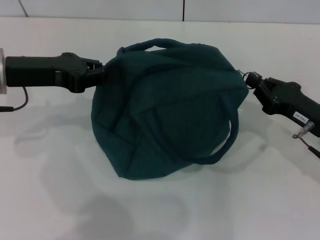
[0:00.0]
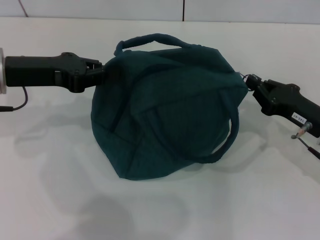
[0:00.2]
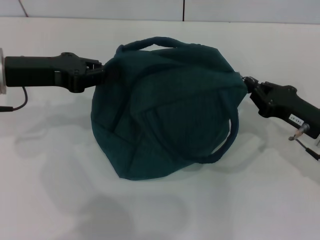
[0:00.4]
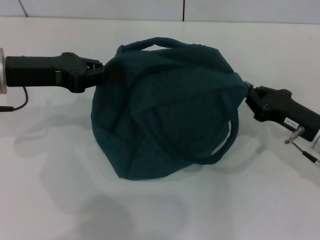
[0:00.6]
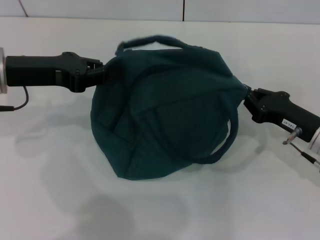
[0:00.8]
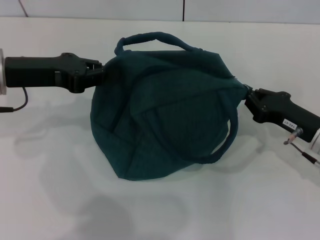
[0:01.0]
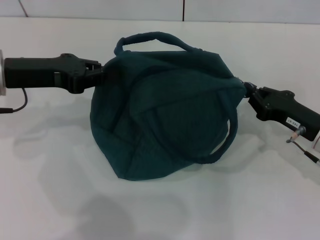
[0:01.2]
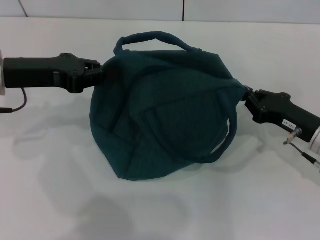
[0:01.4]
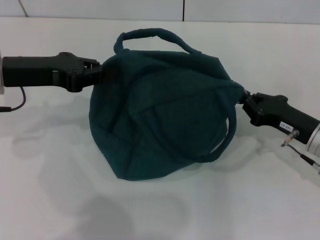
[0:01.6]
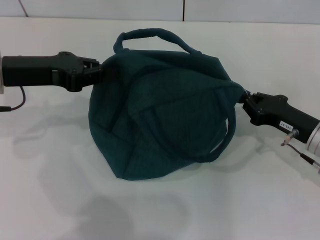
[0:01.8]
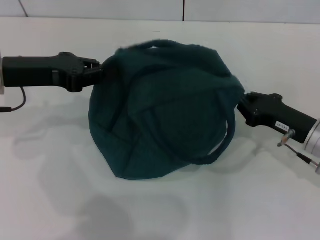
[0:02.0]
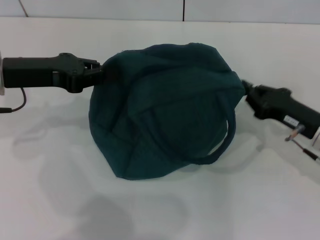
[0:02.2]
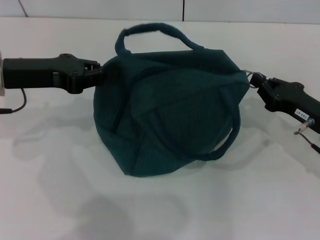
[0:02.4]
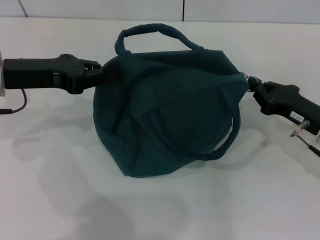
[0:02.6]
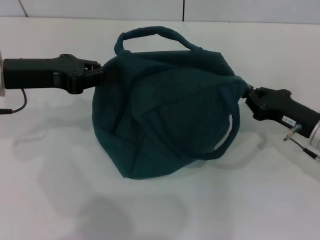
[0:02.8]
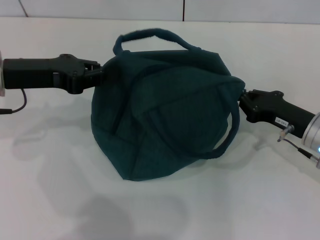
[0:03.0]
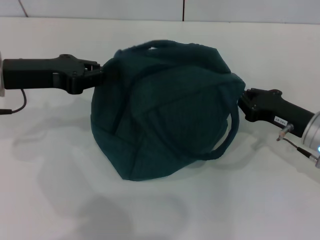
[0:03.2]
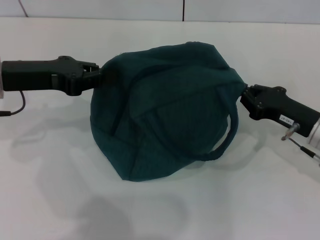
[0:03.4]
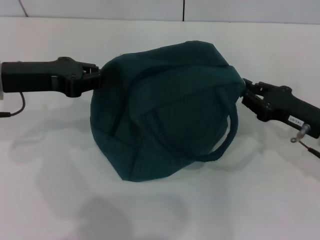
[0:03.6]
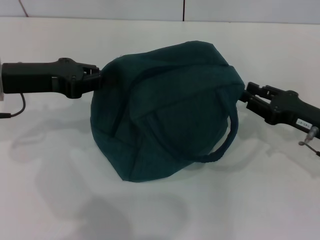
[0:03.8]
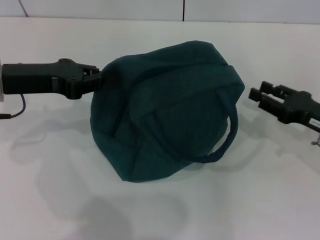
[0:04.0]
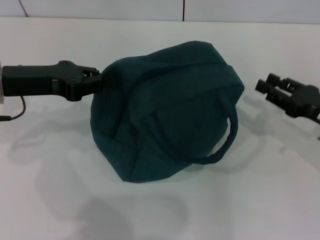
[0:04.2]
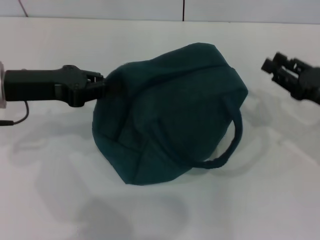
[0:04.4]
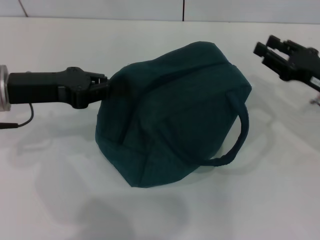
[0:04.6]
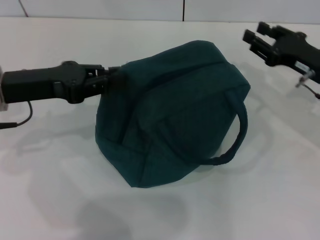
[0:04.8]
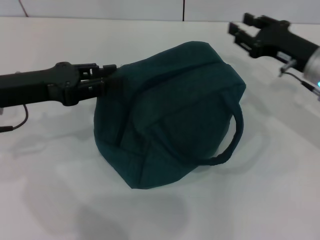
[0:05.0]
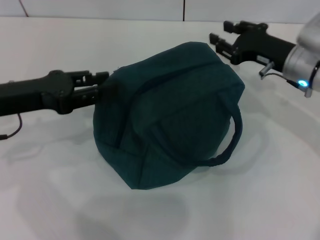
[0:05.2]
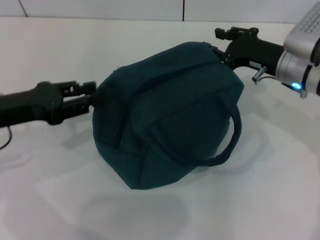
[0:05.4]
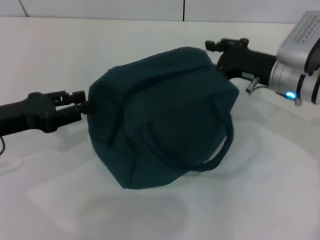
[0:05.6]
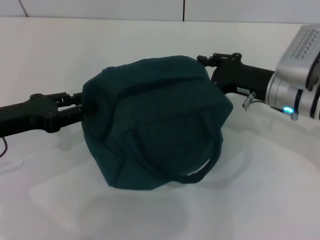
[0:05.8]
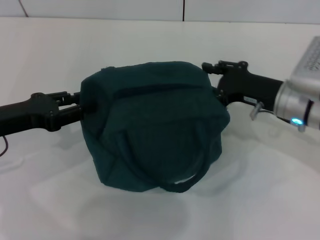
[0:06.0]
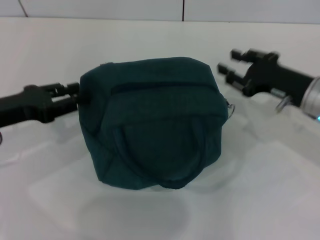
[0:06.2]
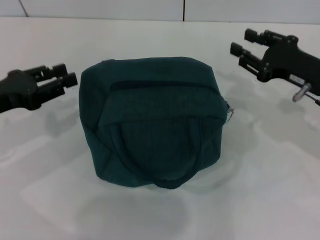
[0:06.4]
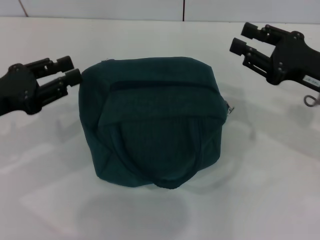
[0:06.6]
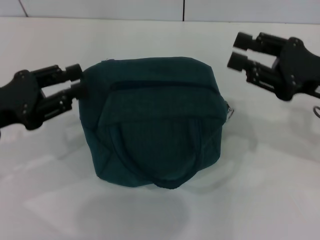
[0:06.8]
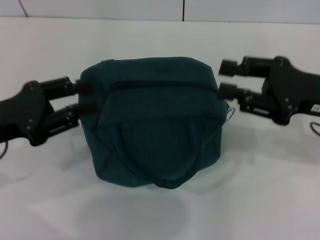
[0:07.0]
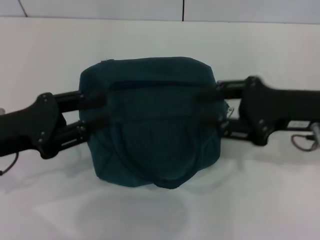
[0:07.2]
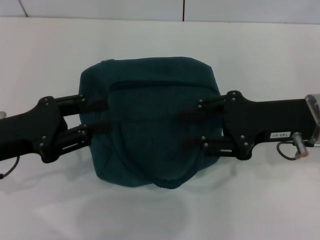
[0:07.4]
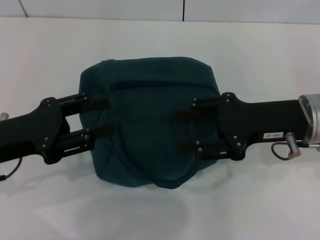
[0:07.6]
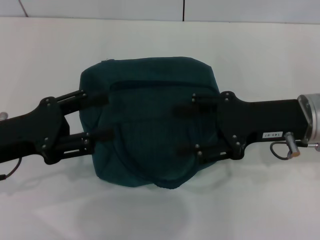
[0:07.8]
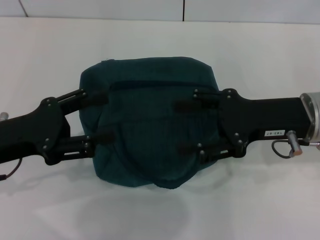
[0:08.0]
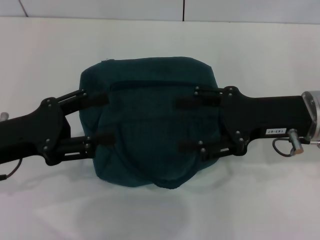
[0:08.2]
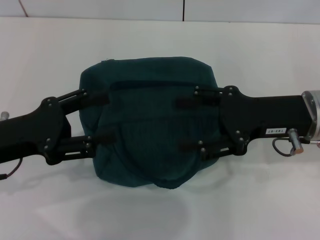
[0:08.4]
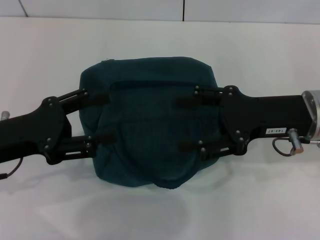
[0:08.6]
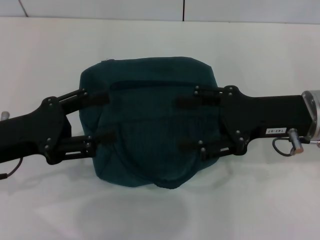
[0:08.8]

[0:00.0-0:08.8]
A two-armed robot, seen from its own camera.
Step, 0.0 to 4.0 s: Zip up the lunch bag with your right hand.
Step, 4.2 to 6.4 s: Hold the lunch bag with your left hand.
0.0 to 3.0 s: The grippers move only a little.
3.0 to 4.4 s: The right gripper ends up roughly 5 cm from where it was, and opens its fingers.
4.4 to 5.8 s: The right gripper travels to the left and forward by about 10 cm. Meanwhile the left gripper shifts some 5 cm downward, and opens.
5.8 to 7.4 s: The left gripper shifts by roughly 5 cm; the right gripper goes about 10 cm backward and upward.
7.4 to 8.8 s: The right gripper opens its fingers; the left gripper opens up.

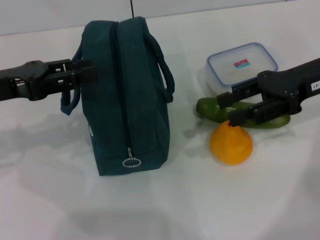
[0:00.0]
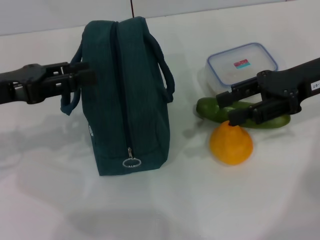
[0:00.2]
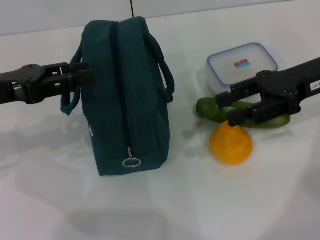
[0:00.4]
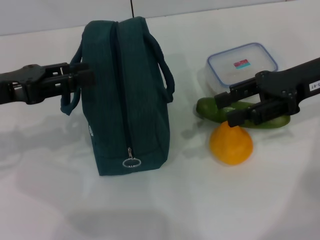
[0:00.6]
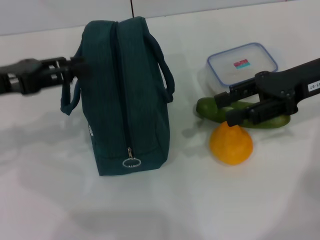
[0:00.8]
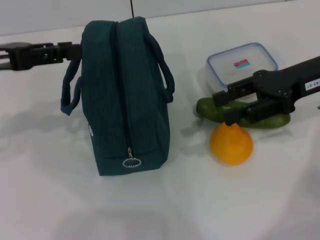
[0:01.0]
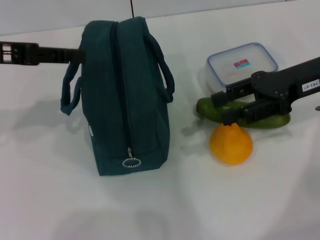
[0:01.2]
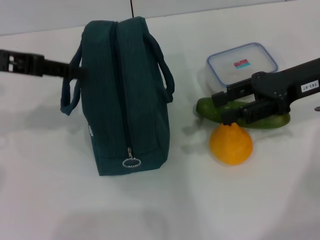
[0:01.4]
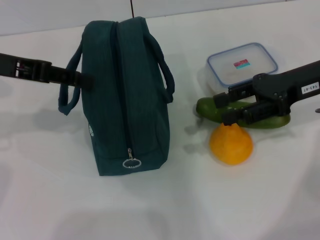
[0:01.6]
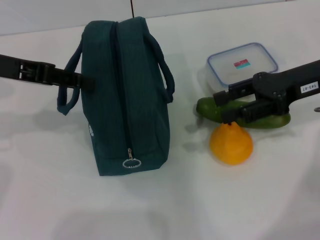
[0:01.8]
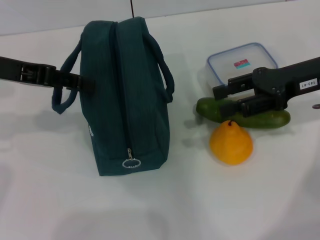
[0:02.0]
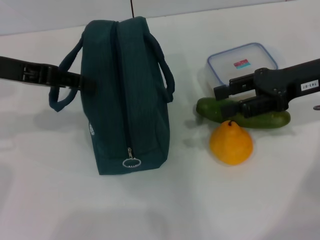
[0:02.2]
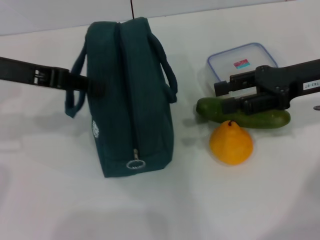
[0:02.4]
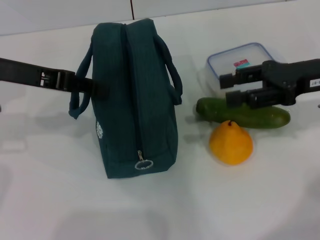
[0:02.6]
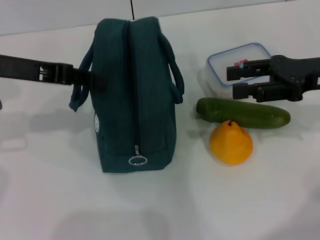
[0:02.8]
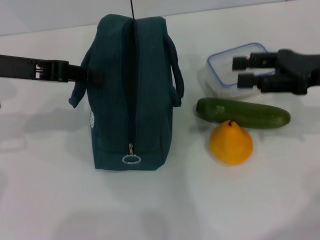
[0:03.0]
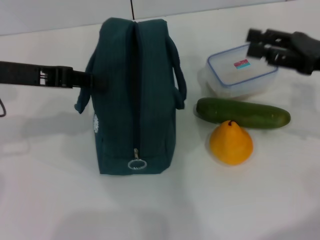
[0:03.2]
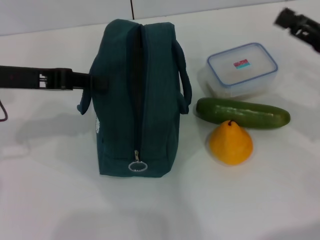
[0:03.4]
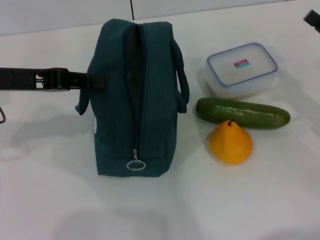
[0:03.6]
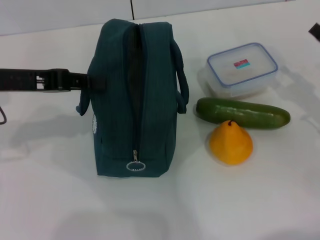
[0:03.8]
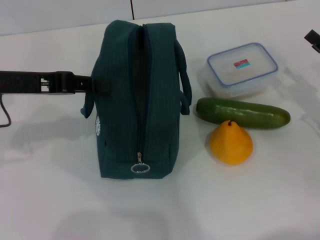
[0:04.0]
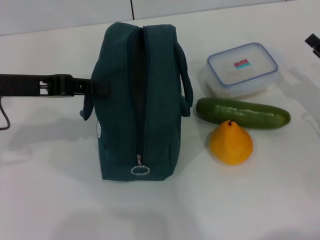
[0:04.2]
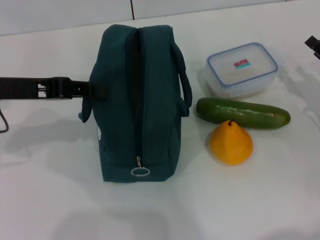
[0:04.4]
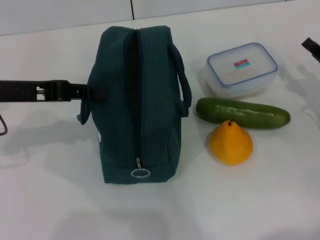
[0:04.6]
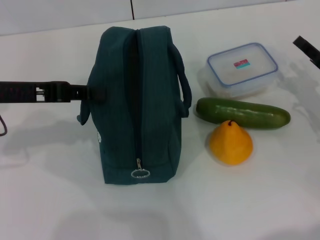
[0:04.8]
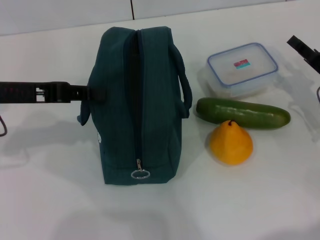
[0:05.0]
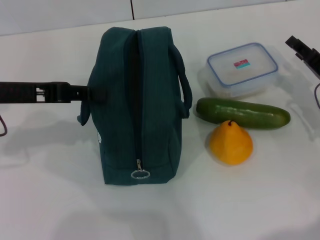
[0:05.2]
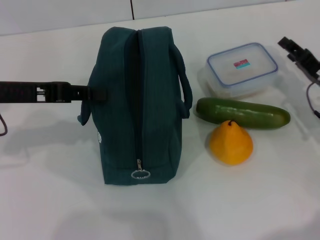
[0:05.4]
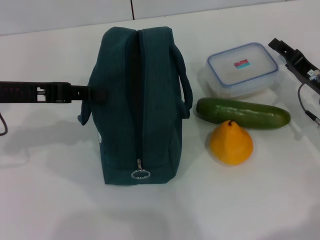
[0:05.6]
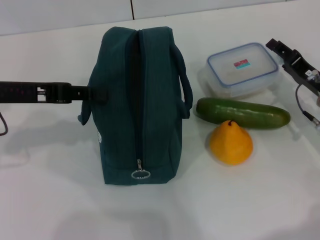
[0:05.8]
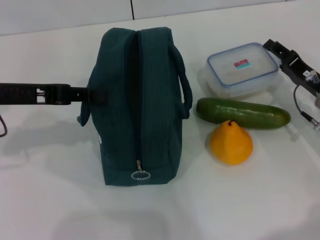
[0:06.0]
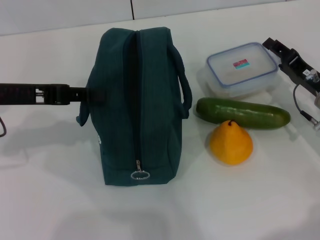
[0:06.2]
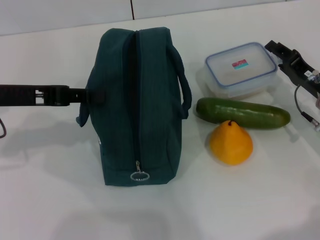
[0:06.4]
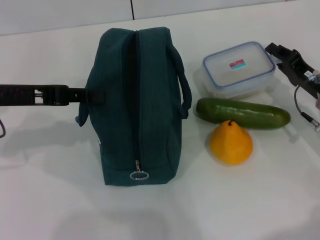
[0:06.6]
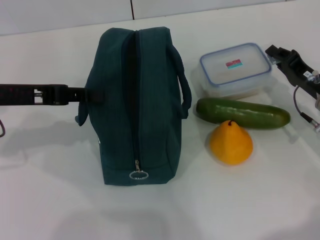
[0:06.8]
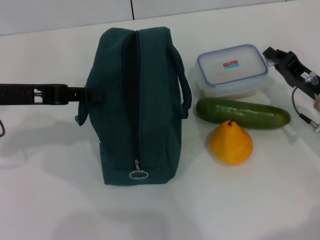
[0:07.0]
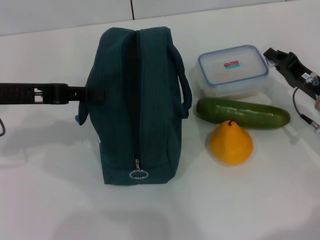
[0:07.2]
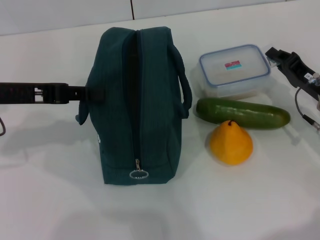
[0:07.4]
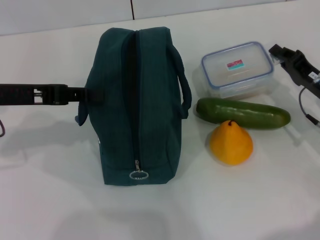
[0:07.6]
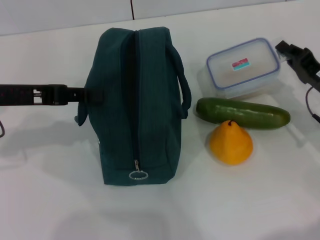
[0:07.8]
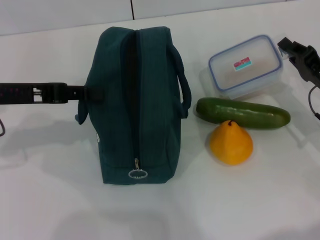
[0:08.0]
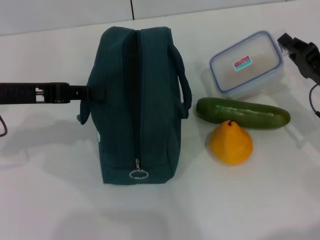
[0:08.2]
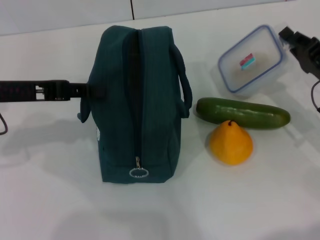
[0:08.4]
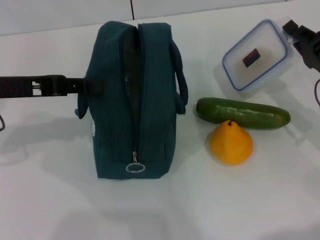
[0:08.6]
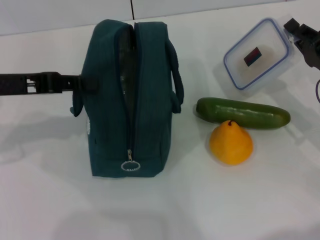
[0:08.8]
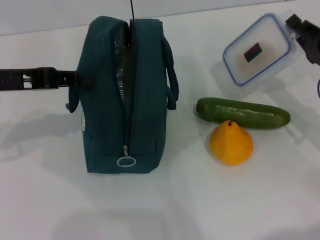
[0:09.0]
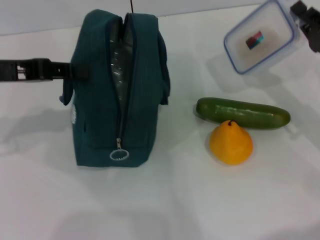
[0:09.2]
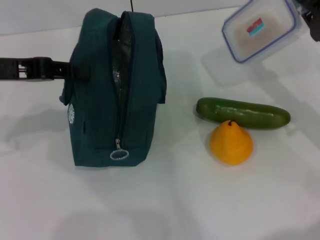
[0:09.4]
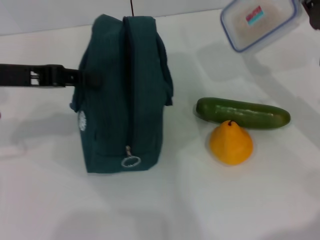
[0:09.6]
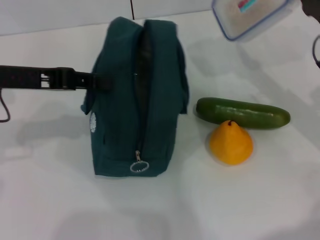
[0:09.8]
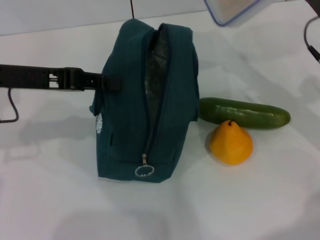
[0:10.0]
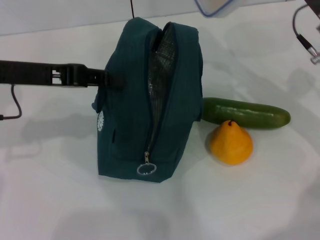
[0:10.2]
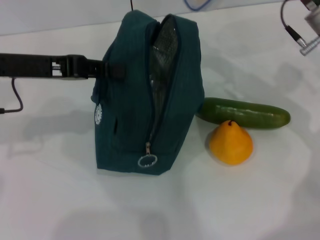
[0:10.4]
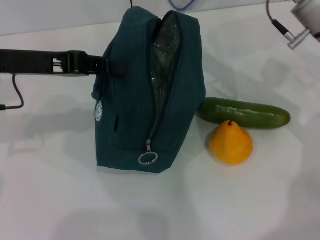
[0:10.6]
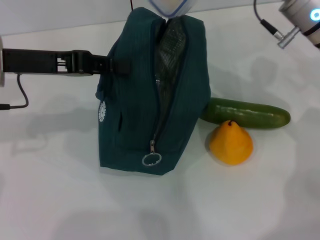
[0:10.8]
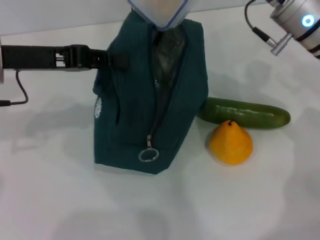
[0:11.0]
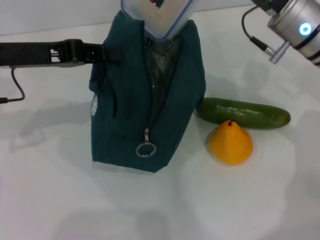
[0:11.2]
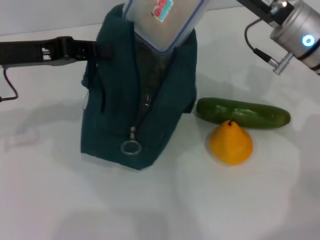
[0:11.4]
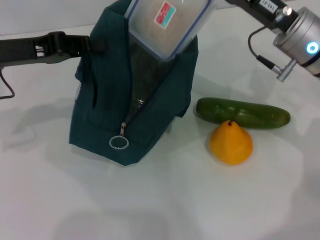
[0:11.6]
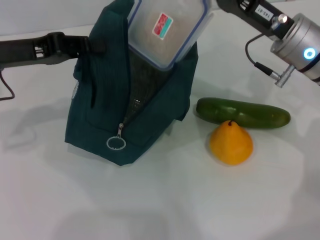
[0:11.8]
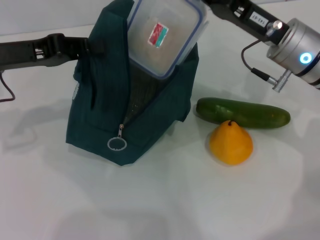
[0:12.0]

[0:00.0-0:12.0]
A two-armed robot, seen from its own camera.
Step, 0.0 to 2.8 s: Hold the lunch bag with your left hand.
Step, 3.2 to 7.0 s: Pick up the lunch box with your right hand.
0.0 to 1.6 s: The left gripper goes roughly 5 cm upward.
1.6 to 3.0 s: The left gripper closes up.
3.0 to 4.4 s: The right gripper goes about 10 cm downward and to the right.
4.4 to 6.0 s: The right gripper moves to the left, some 5 cm.
6.0 to 7.6 s: The right gripper closes.
7.6 to 9.0 s: The grippers move only a little.
9.0 to 10.4 s: The right gripper is displaced upward, forward and to the left by approximately 15 cm.
10.4 to 12.0 s: The right gripper changes place by about 5 cm.

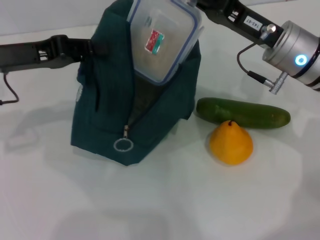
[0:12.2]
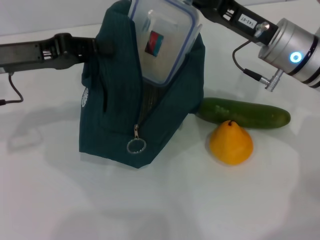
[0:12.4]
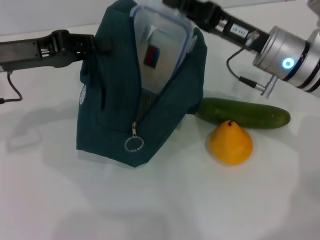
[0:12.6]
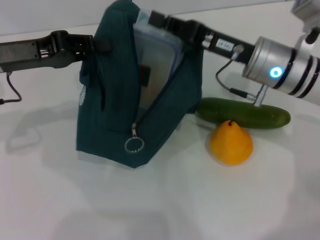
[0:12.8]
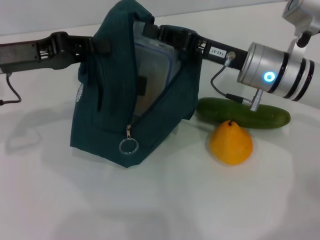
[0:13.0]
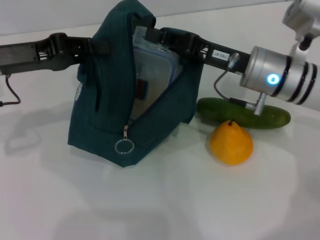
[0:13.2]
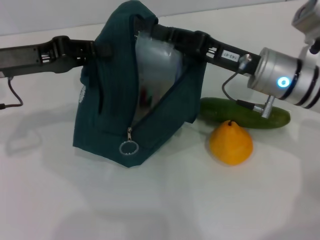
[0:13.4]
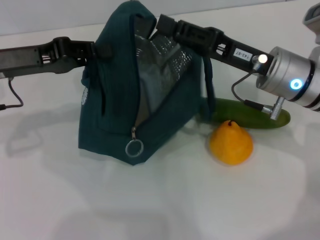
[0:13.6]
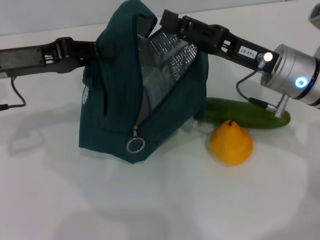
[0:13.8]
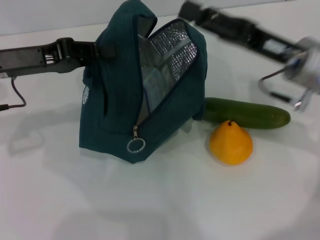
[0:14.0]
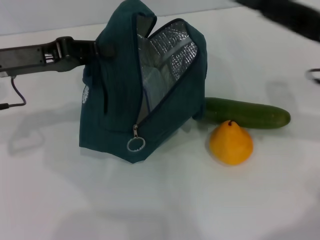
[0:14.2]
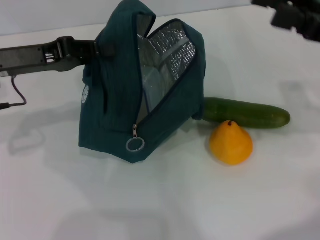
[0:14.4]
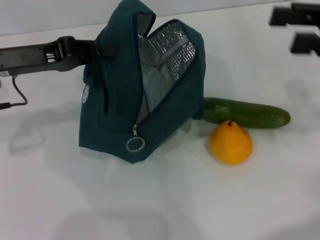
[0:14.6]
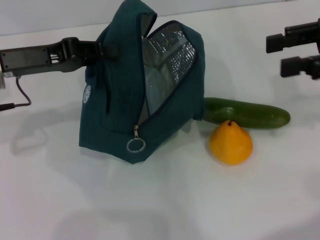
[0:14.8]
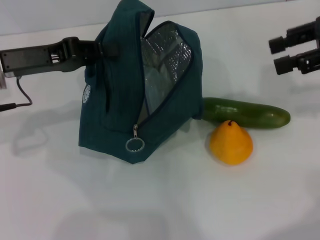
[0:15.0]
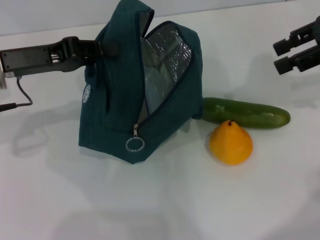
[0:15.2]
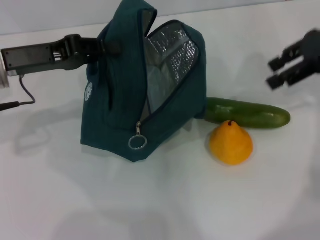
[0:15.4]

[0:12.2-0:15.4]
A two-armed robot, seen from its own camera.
13.8 to 15.4 s: The right gripper is displaced upward and to the right by about 15 cm, and opens its fingers.
